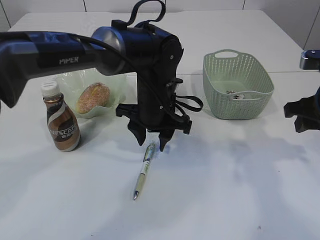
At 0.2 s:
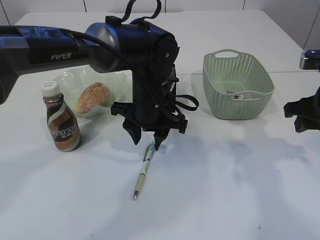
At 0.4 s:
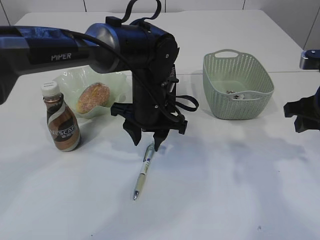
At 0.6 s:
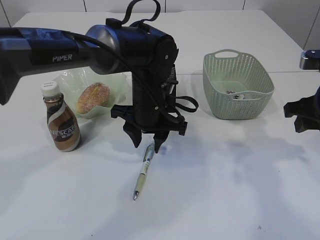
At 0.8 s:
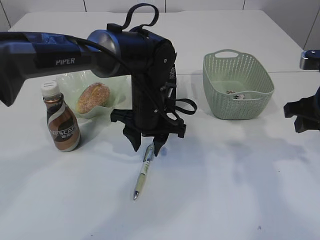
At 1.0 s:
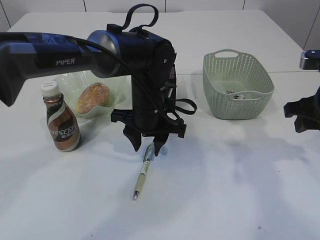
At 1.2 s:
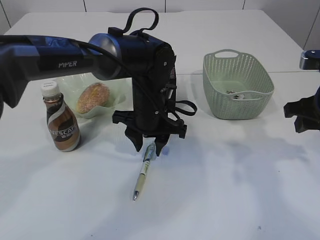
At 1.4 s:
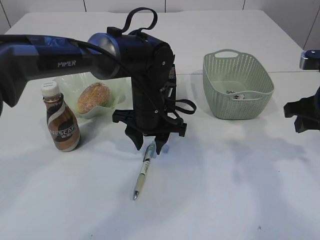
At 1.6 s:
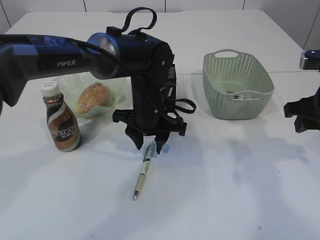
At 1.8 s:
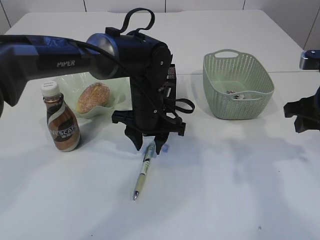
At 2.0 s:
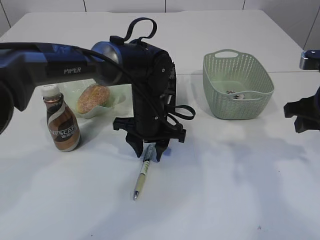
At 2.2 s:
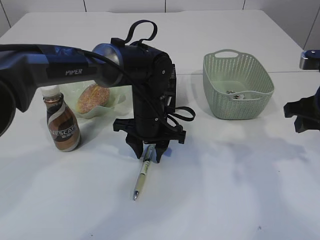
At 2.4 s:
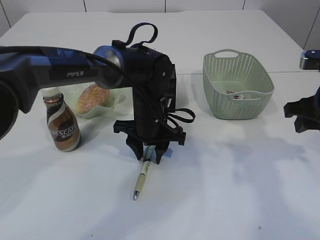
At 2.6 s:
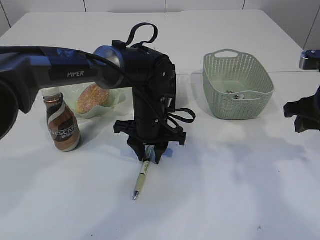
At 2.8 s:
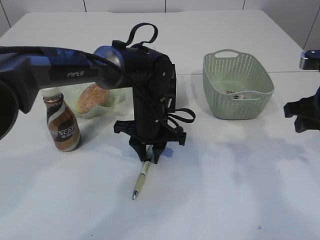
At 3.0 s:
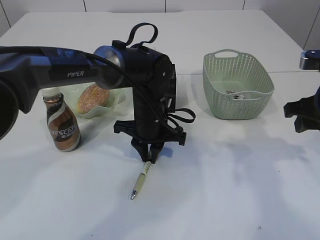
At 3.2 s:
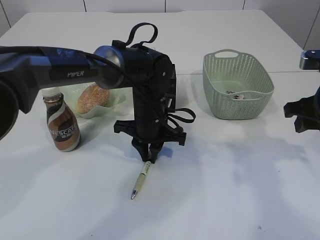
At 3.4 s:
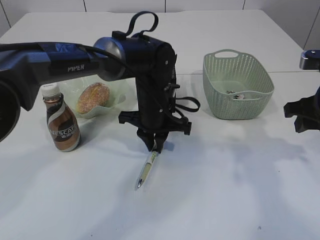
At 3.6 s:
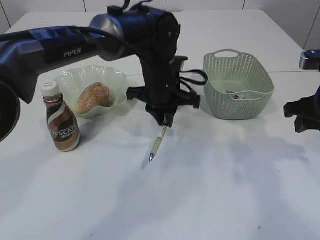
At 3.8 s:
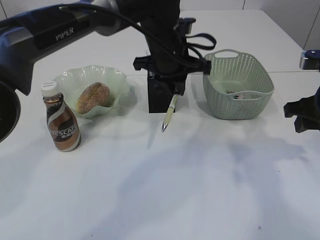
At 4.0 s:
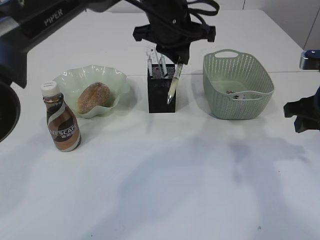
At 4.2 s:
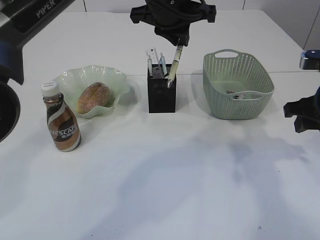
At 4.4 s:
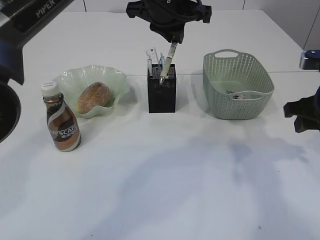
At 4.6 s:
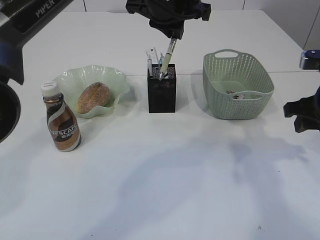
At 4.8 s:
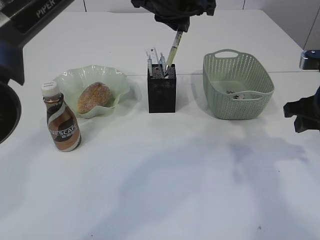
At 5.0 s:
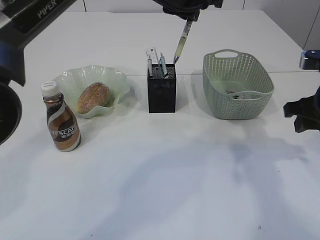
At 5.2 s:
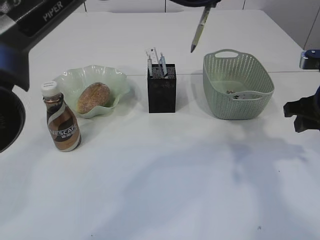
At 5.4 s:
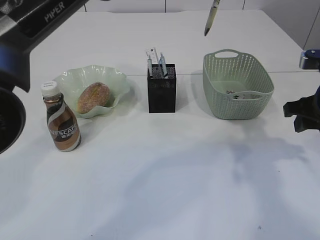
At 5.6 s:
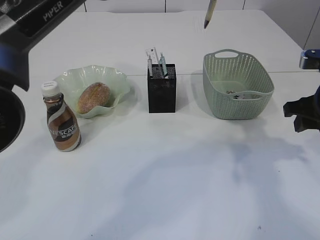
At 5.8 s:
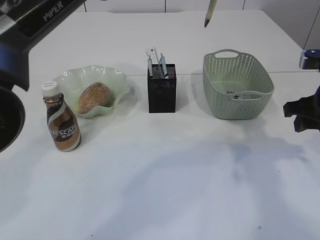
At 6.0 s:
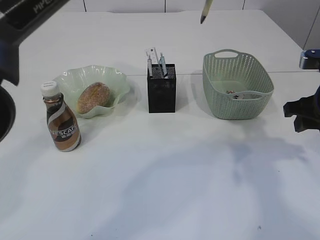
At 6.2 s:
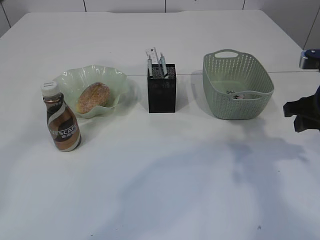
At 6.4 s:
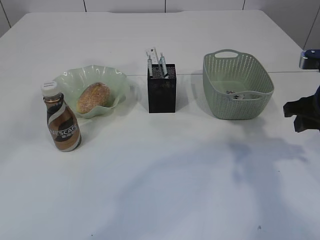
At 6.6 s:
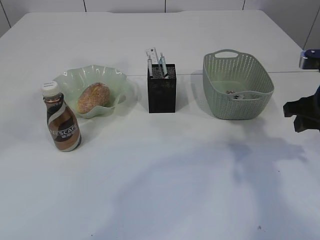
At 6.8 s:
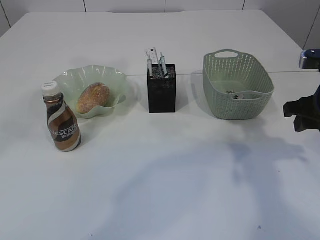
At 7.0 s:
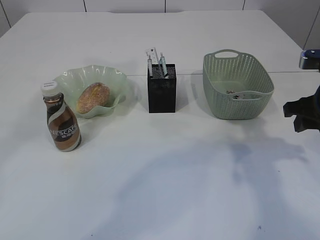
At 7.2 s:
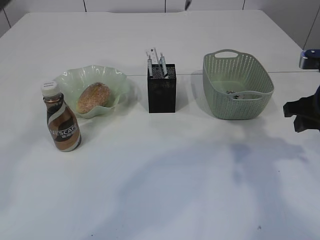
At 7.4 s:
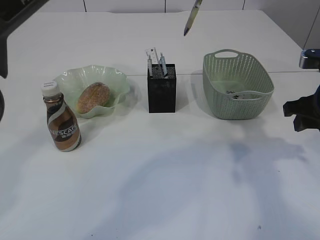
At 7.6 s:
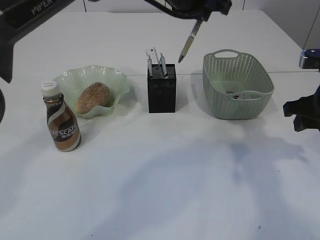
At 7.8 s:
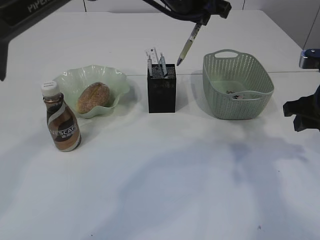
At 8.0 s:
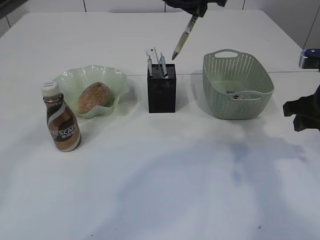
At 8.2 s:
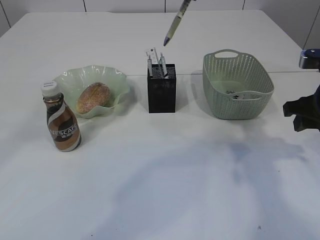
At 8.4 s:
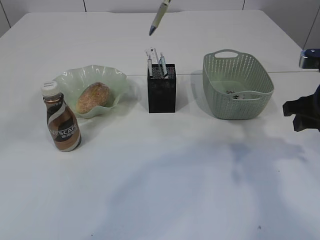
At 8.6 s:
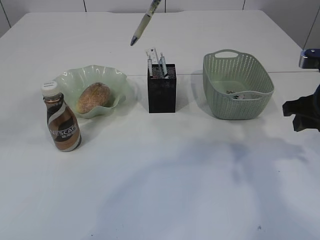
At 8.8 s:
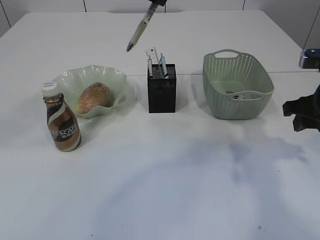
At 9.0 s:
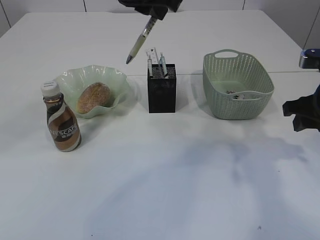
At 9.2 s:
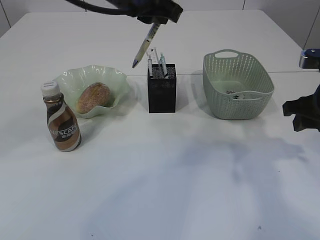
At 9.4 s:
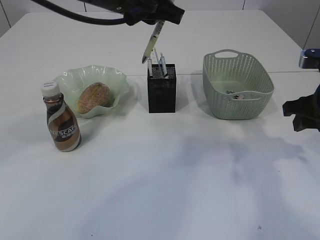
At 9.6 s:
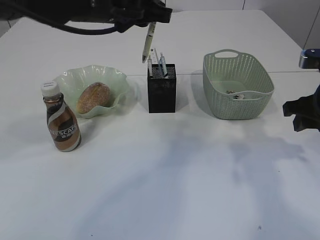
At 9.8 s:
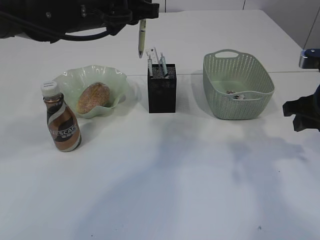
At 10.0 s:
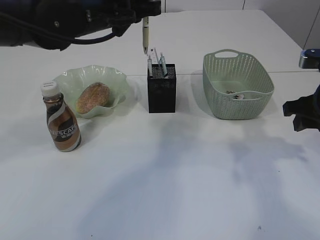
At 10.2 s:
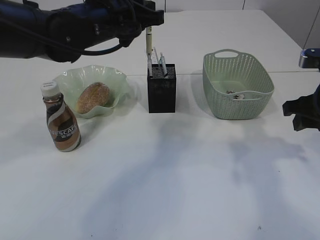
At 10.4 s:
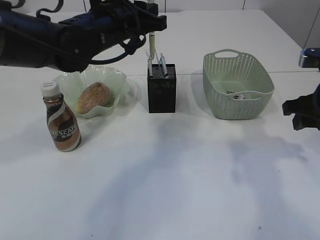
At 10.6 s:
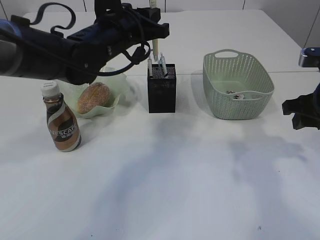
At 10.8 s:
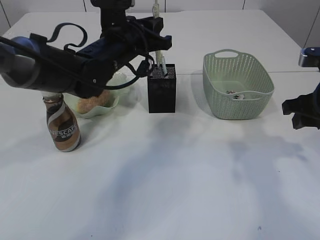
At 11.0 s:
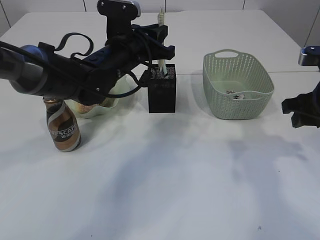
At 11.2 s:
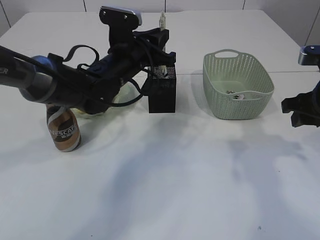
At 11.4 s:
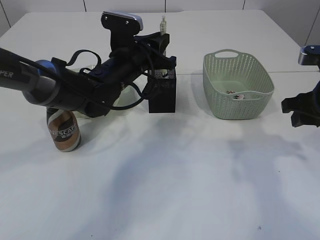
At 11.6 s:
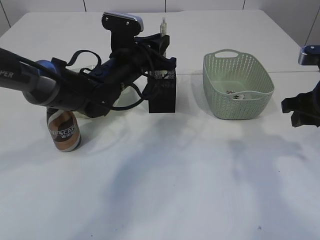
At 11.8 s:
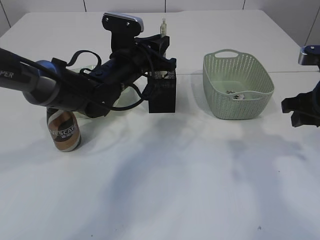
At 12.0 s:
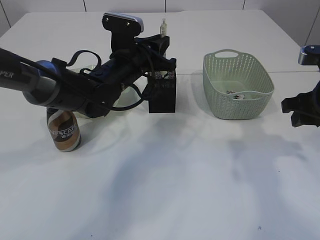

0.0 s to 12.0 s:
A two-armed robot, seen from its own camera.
Step, 0.0 to 4.0 s: Pick up the pen with left arm.
0.0 to 1.6 s: The grippers stay close to where they were, moving slightly.
1.6 to 3.0 s: The left gripper closes its fingers.
3.0 to 4.4 s: The left gripper is displaced upward by approximately 20 cm.
4.4 to 6.0 s: The left gripper is displaced upward by roughly 5 cm.
6.0 to 7.6 s: The left gripper heads downward, covering about 5 cm.
7.6 to 9.0 s: The left gripper shifts some 10 cm to the left and backward.
9.0 to 10.4 s: The left gripper heads downward, covering approximately 10 cm.
10.4 to 12.0 s: The left gripper moves downward, roughly 10 cm.

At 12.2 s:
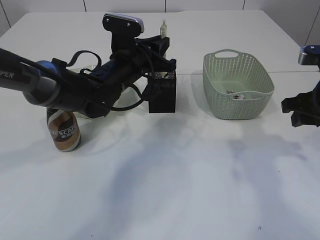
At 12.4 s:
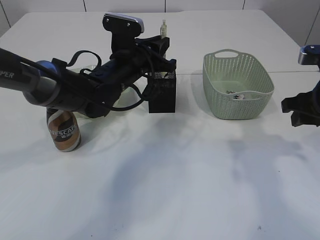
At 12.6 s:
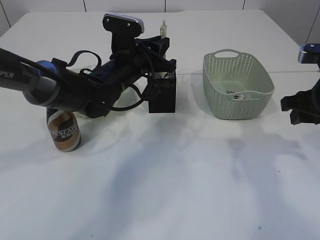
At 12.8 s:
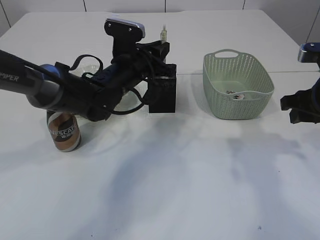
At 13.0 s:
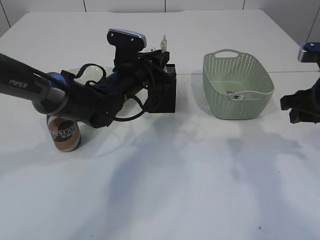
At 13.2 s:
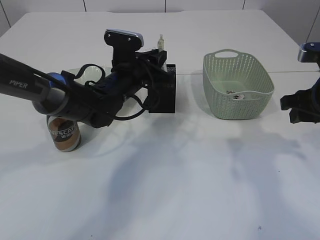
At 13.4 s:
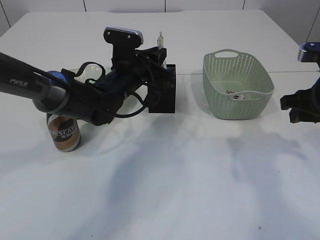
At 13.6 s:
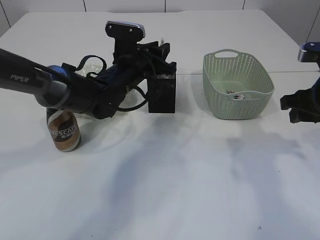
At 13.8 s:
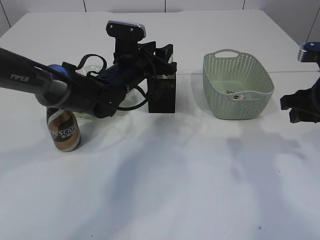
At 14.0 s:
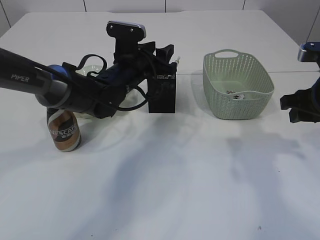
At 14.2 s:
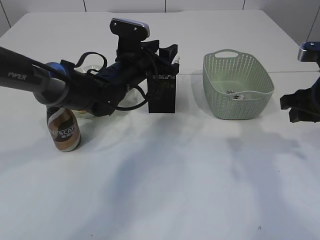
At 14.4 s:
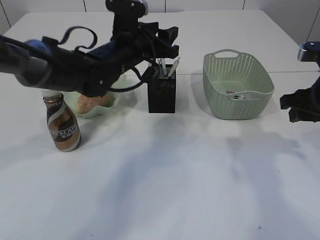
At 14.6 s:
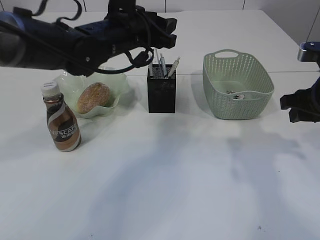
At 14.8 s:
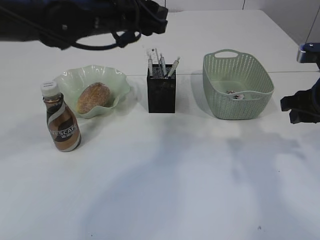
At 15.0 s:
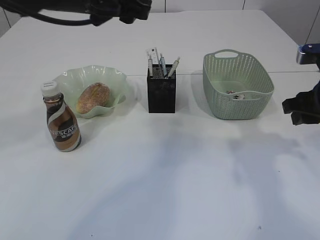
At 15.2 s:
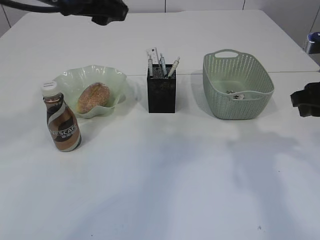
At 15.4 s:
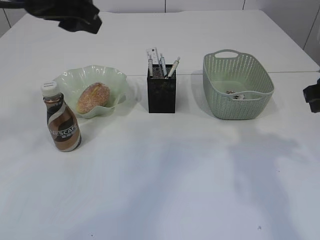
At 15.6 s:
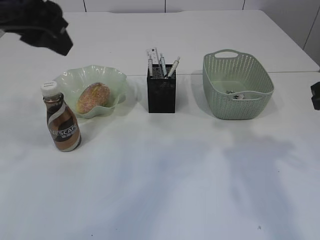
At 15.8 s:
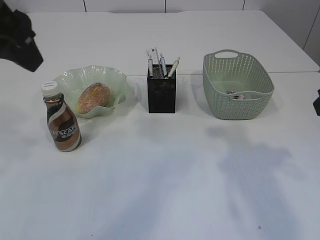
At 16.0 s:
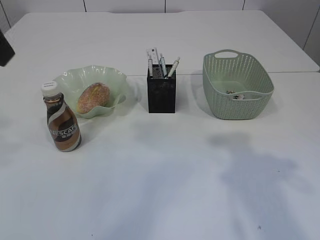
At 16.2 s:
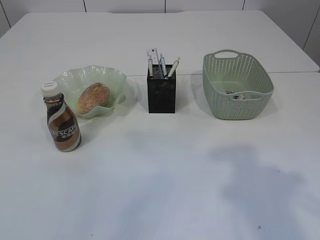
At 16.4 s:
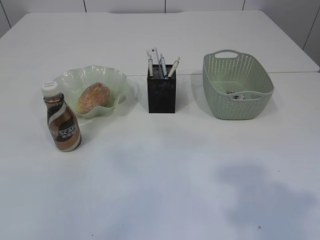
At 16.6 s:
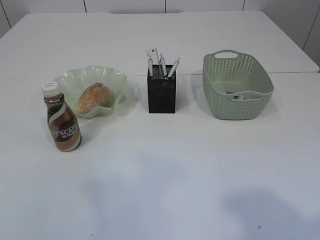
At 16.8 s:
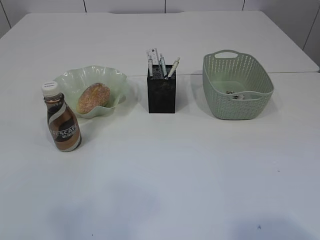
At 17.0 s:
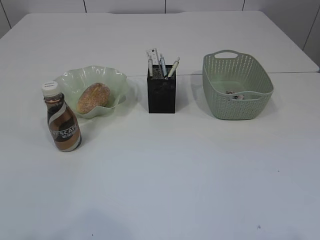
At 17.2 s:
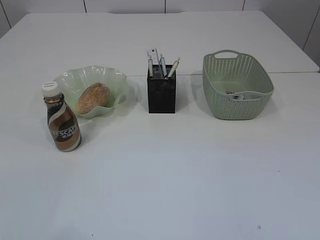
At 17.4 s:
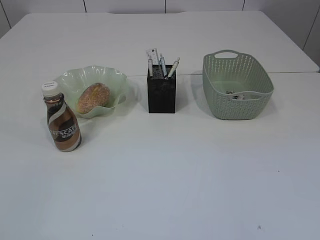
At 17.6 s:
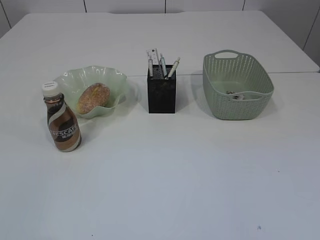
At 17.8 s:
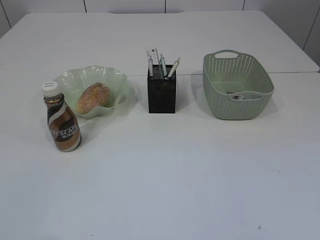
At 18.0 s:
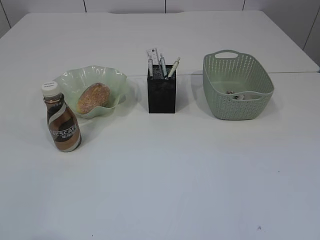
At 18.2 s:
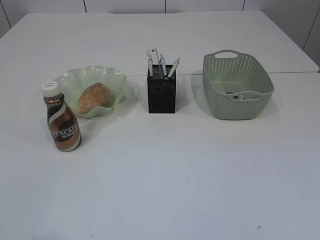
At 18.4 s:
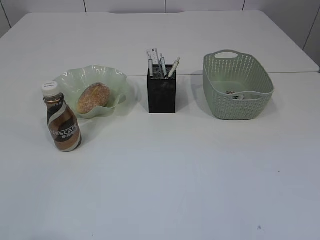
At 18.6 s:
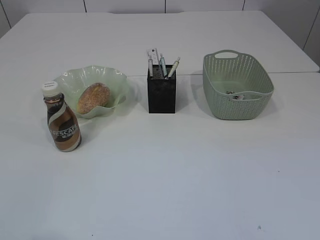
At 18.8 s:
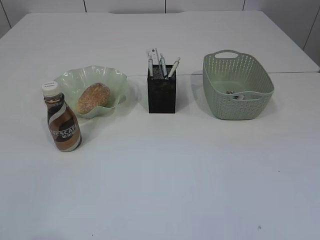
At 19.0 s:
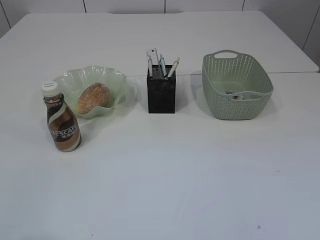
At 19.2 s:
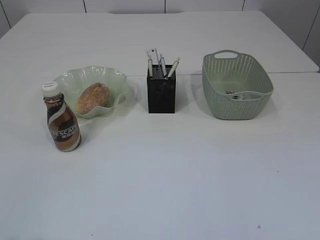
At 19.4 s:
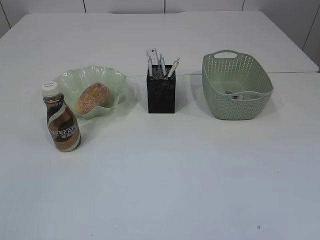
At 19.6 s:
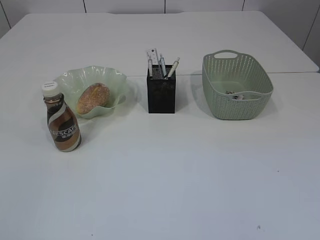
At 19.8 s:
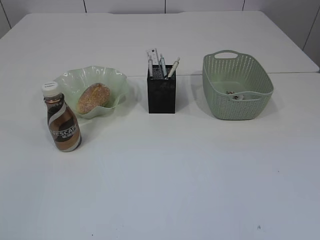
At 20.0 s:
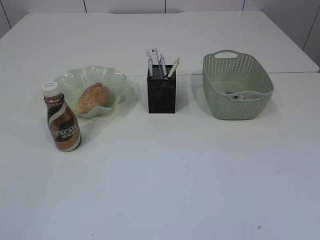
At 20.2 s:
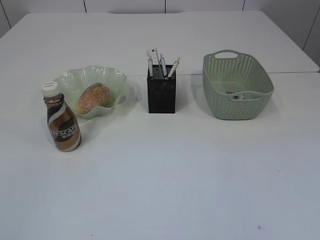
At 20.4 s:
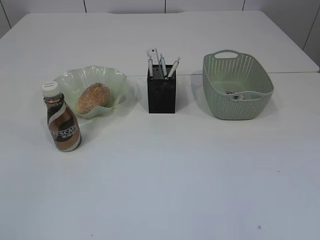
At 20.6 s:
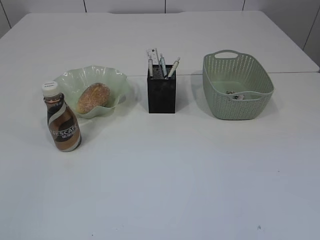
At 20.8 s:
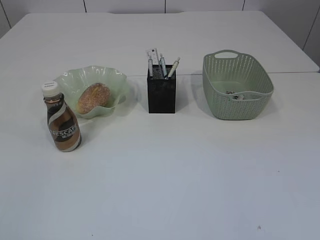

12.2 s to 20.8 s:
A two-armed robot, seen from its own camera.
Step, 12.2 to 14.4 s: Place the pen into the pen holder.
12.2 to 13.6 s: There are only small adjustments of the grippers.
13.6 to 15.0 s: The left gripper travels upward and backward by some 20 cm.
15.0 to 16.6 s: The right gripper moves backward and upward, approximately 30 cm. The left gripper shifts roughly 35 cm backward and to the left.
19.4 to 20.8 s: Both grippers stay about where they are.
